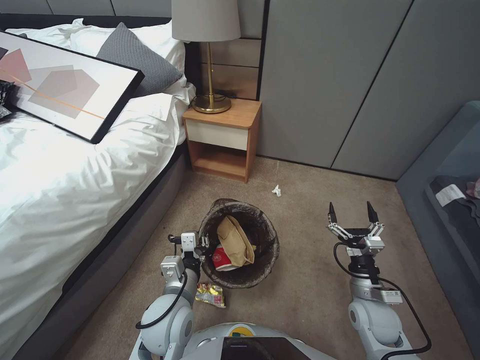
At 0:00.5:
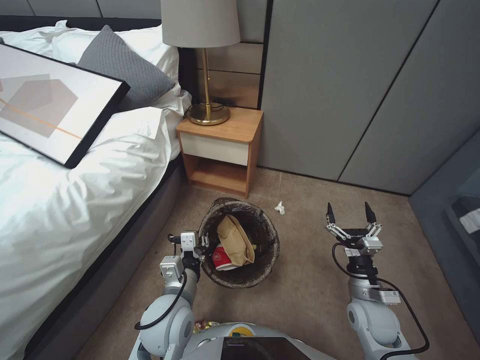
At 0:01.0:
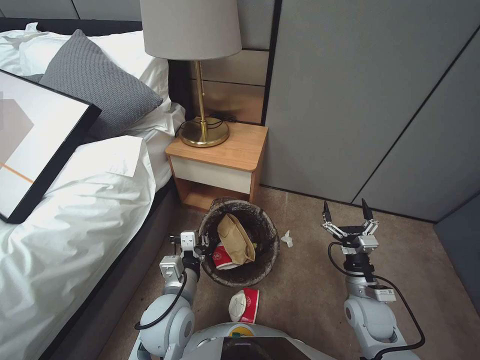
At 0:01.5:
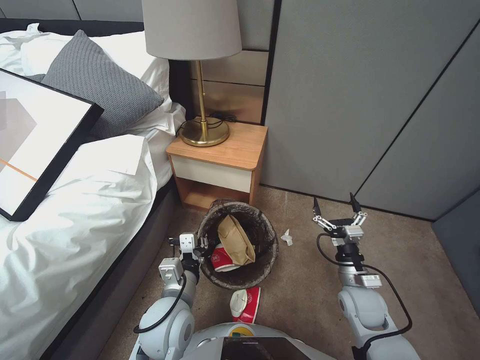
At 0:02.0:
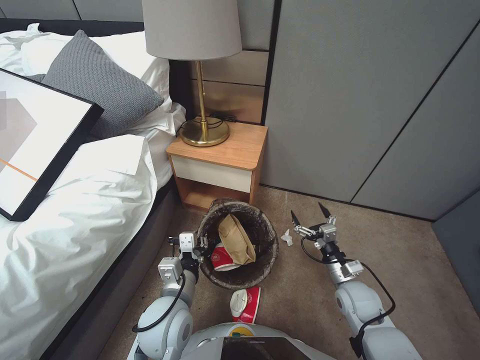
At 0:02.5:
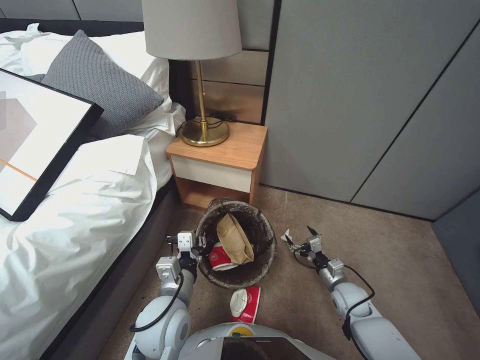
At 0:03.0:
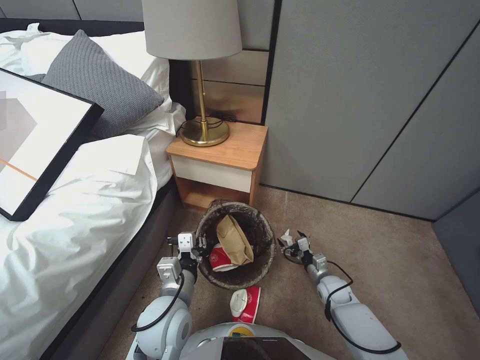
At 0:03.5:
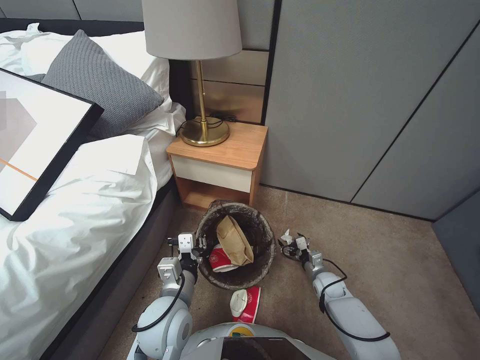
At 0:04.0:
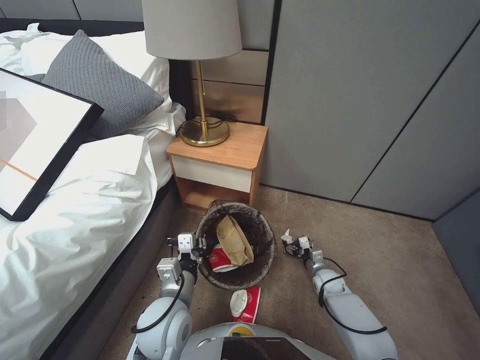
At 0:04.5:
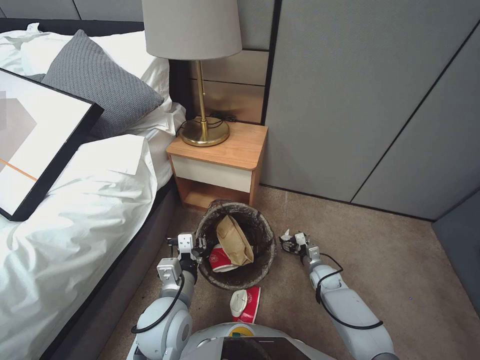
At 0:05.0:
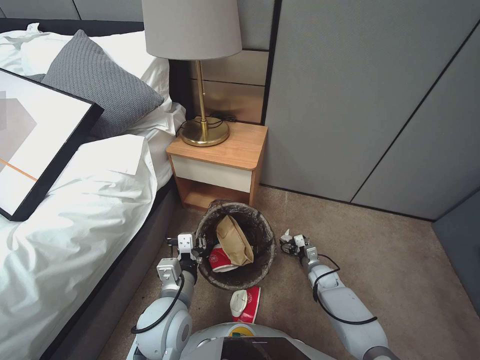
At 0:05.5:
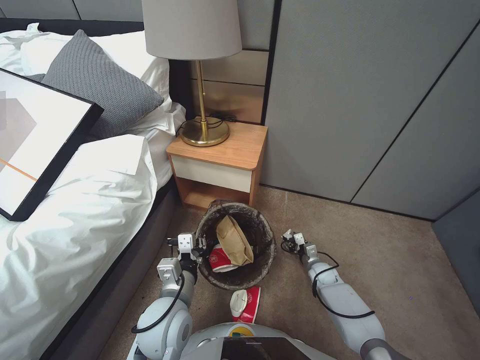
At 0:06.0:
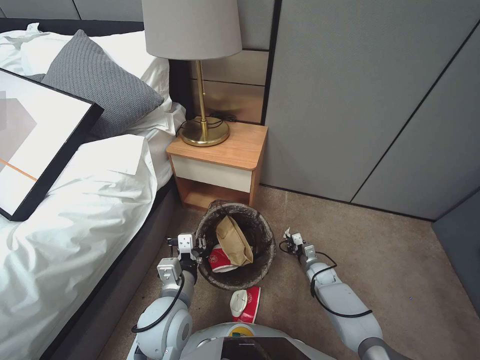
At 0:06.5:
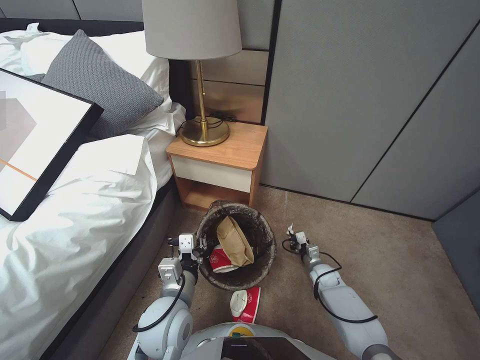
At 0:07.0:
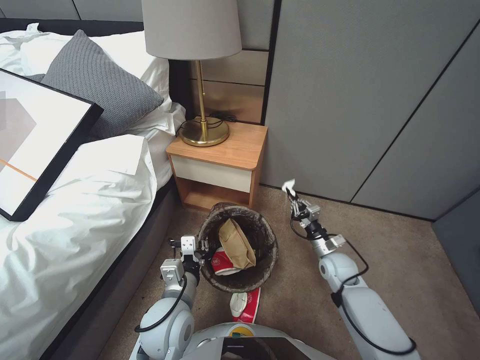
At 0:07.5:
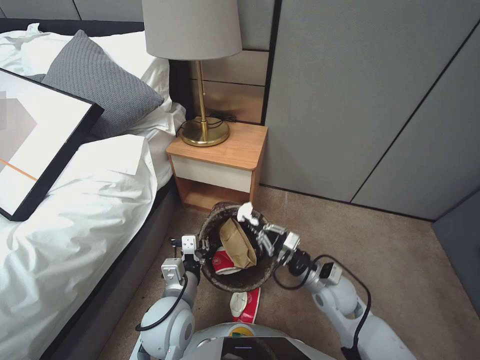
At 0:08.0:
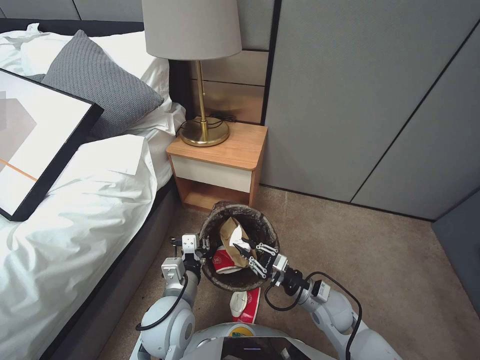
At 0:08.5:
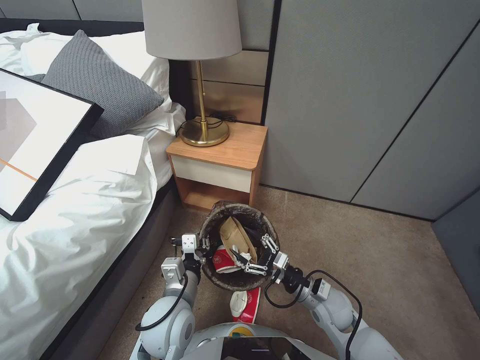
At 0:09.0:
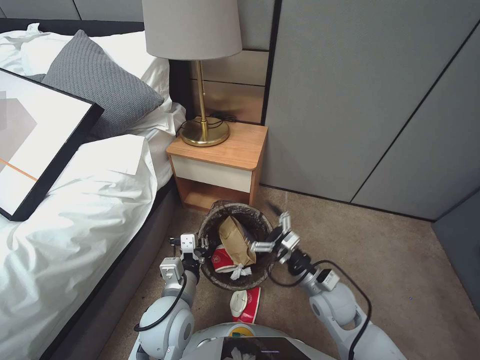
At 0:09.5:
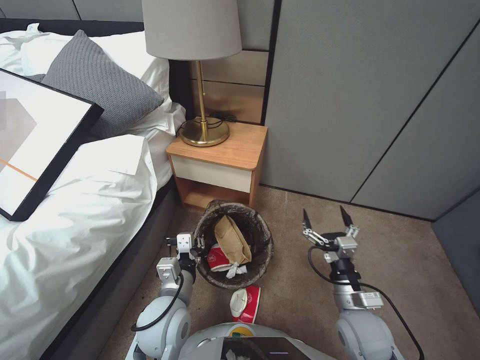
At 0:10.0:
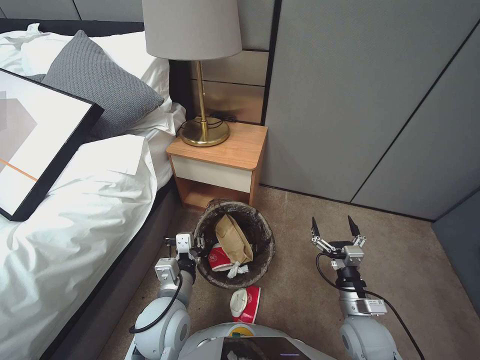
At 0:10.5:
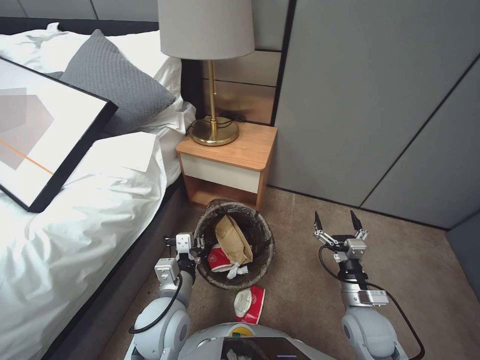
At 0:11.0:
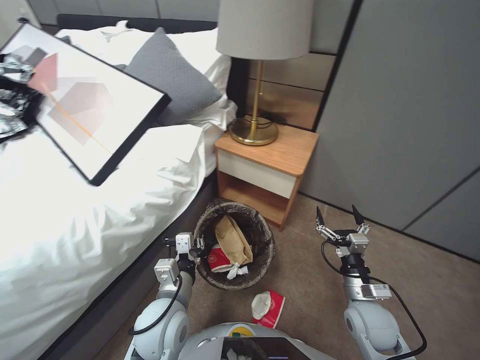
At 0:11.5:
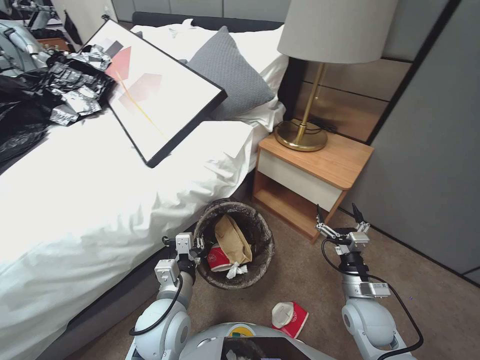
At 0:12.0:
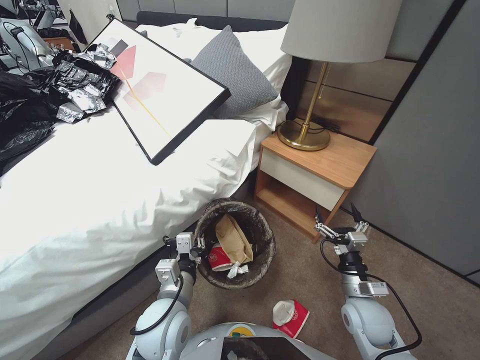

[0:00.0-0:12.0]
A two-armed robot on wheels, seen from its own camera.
Task of the whole recording: Pick up the trash bin, then pick up the garbage from the floor and place it into the trash bin.
0:02.0 to 0:04.0: The right gripper is displaced downward and forward by about 15 cm.
0:04.0 to 0:06.0: The right gripper closes.
0:06.0 to 0:08.0: The right gripper is displaced upward, backward and to the left by approximately 20 cm.
0:08.0 to 0:10.0: The right gripper is displaced backward by about 5 cm, and opens.

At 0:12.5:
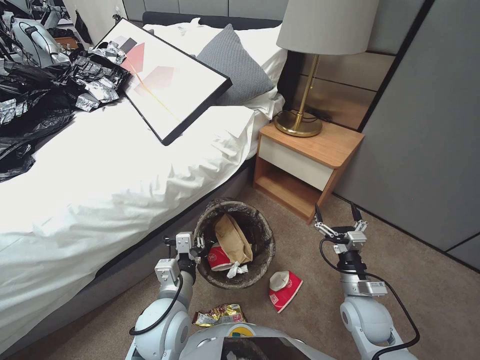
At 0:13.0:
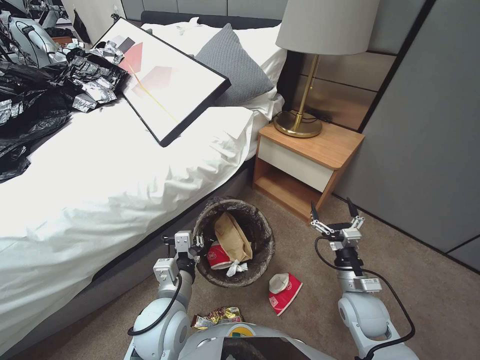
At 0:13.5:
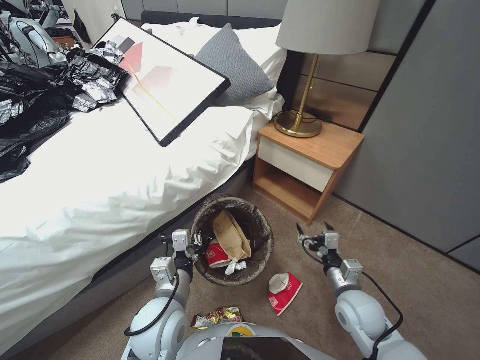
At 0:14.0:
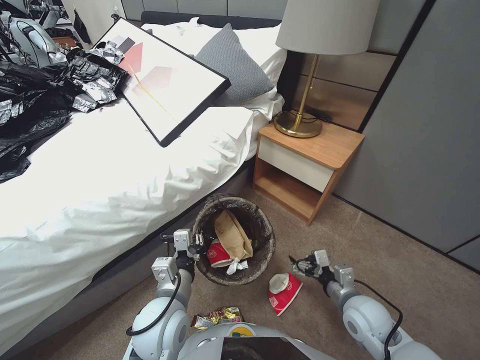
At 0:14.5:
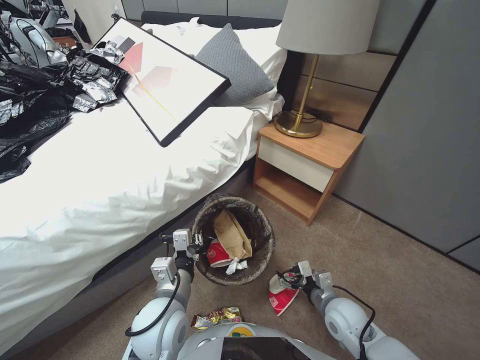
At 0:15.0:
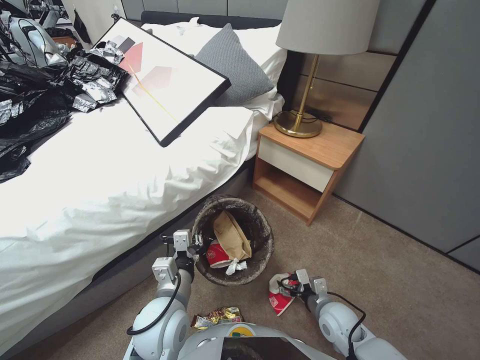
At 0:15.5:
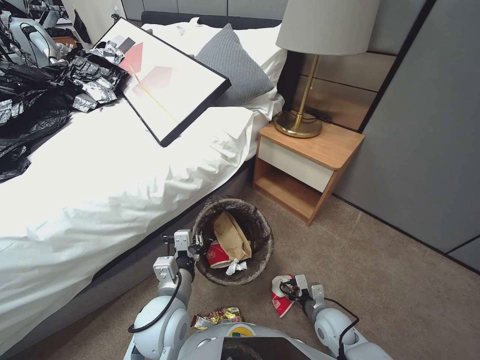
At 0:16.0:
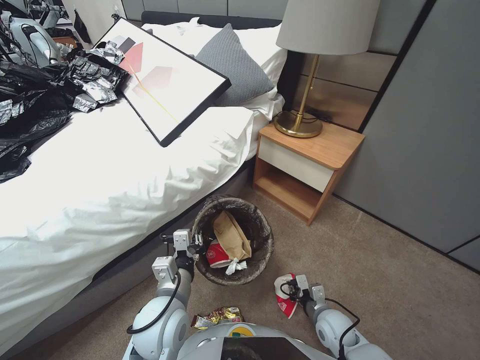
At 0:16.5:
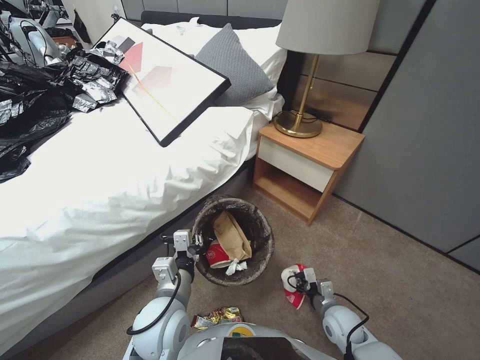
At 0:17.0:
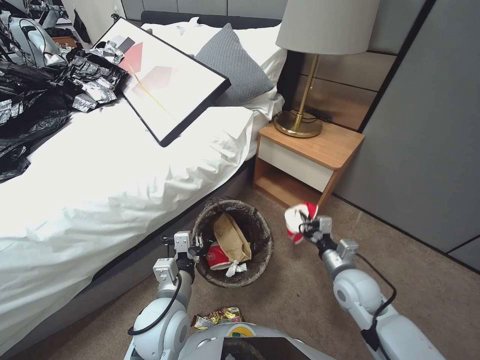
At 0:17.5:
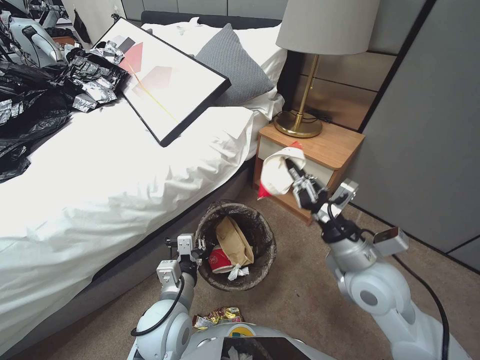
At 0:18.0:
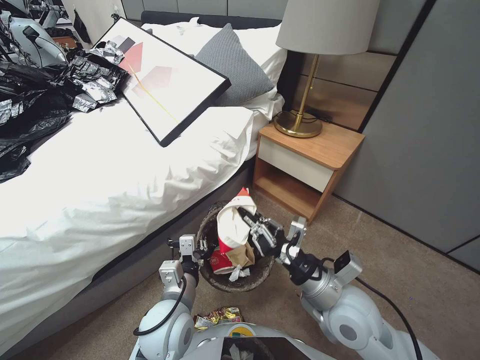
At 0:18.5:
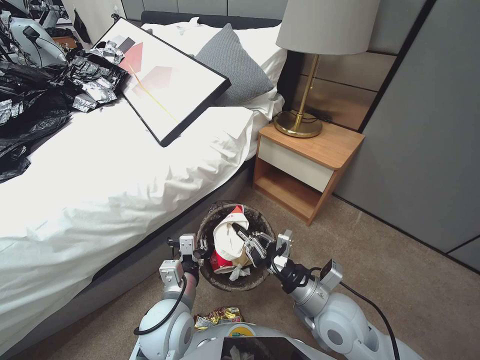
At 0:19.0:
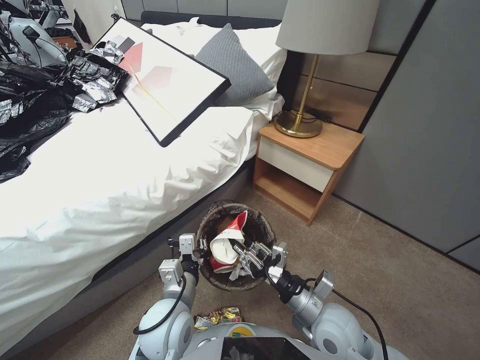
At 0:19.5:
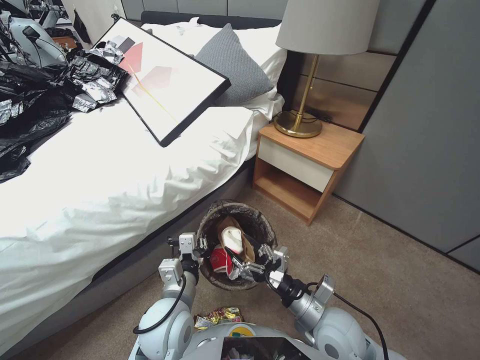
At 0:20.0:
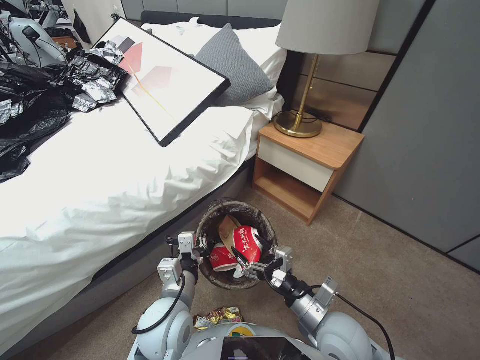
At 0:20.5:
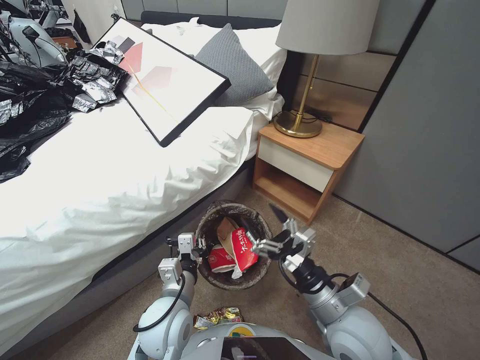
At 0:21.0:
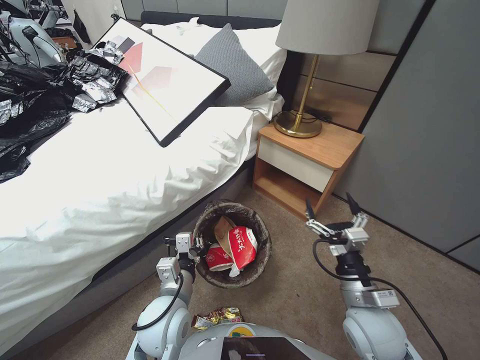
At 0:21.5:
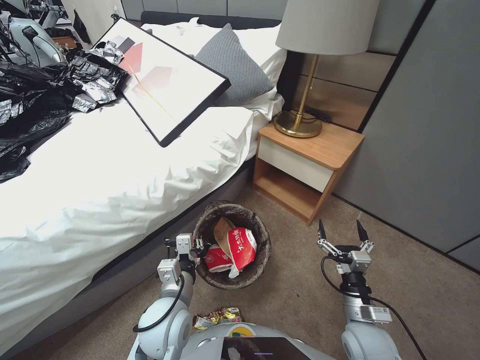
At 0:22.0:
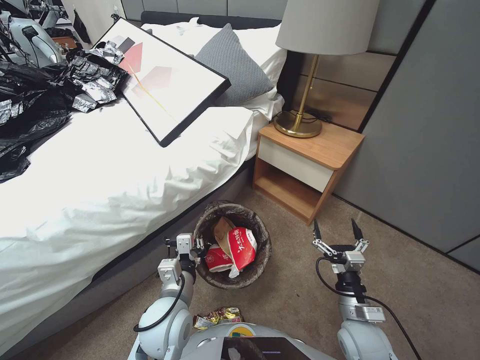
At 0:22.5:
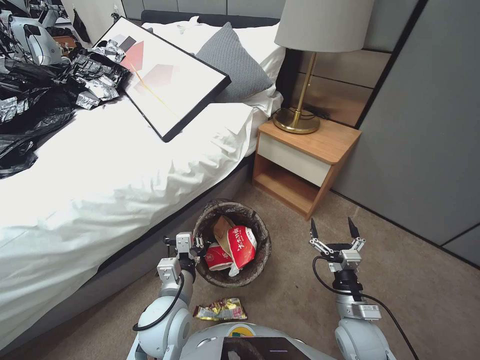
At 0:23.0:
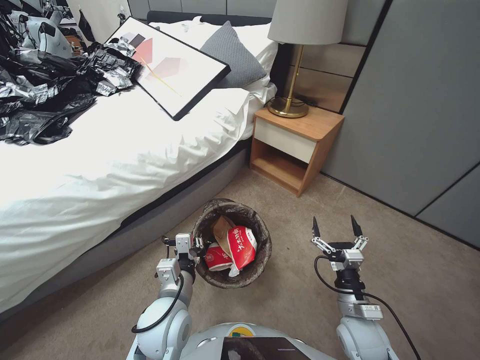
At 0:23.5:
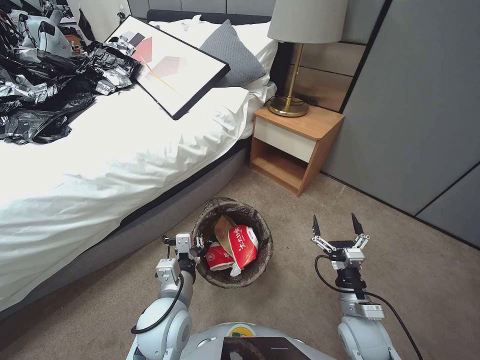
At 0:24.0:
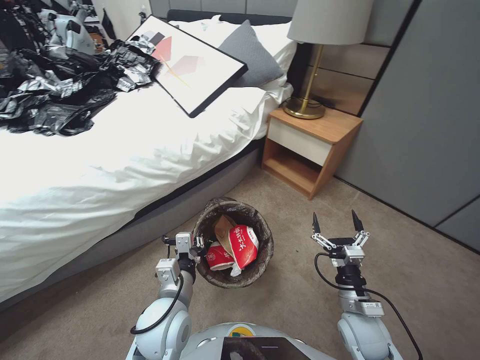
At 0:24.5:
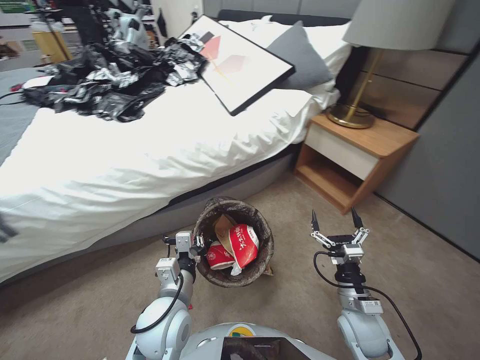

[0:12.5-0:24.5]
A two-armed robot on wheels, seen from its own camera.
Task of the whole recording: Pick up the trash bin, then pick up the garbage from the floor and place it into the trash bin.
0:14.5 to 0:16.5: The right gripper is displaced downward by some 10 cm, and closes up.
0:16.5 to 0:18.5: The right gripper is displaced upward and to the left by about 25 cm.
0:18.5 to 0:20.5: The right gripper opens.
0:20.5 to 0:22.5: The right gripper moves downward and to the right, about 15 cm.

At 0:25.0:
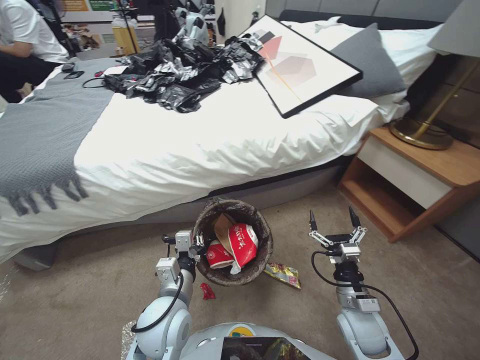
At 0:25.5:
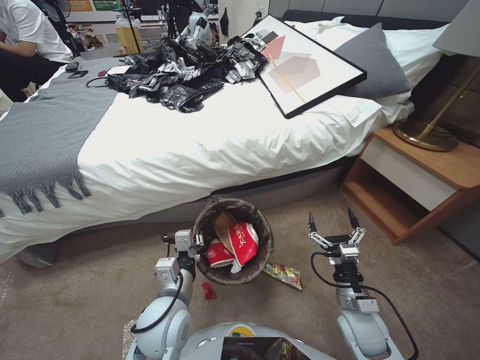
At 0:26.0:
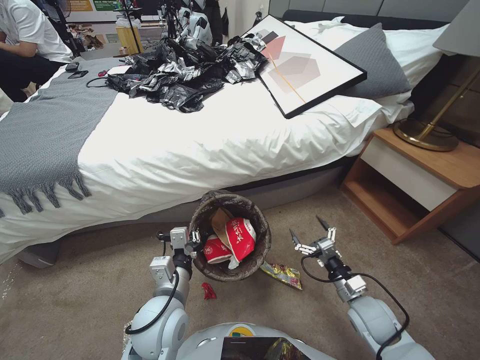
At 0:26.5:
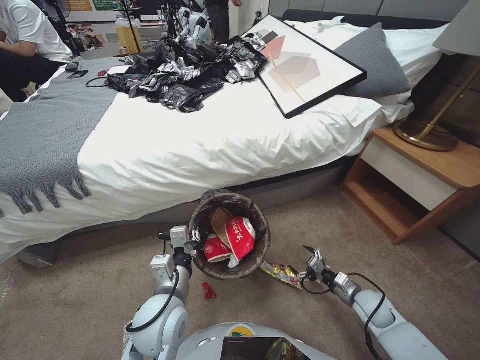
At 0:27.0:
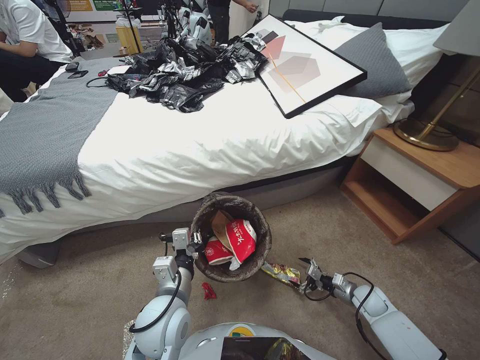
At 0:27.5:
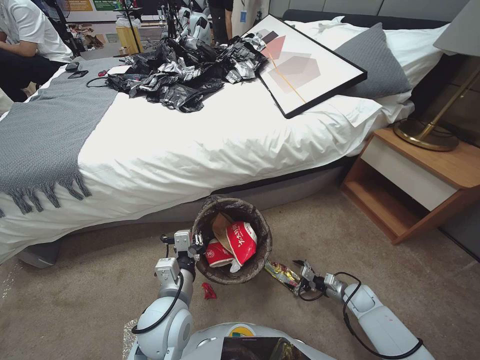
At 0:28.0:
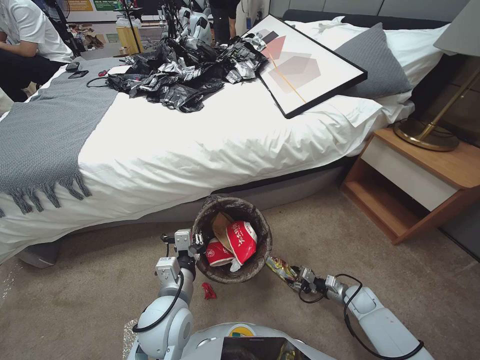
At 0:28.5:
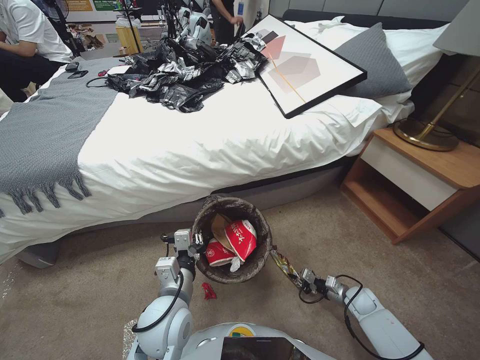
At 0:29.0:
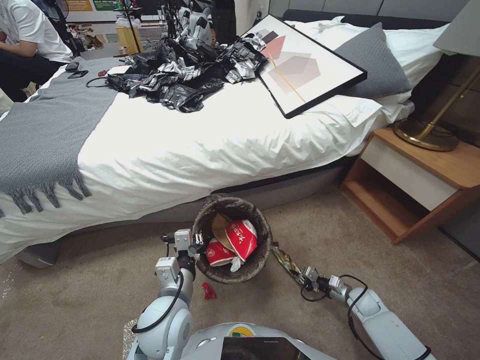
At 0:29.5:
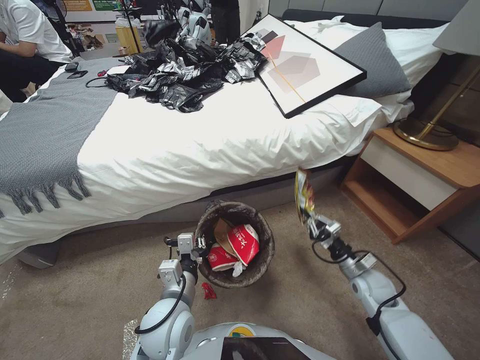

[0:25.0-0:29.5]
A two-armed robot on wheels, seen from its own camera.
Task of the whole recording: Pick up the trash bin, then pick up the garbage from the floor and place it into the trash bin.
0:25.0 to 0:27.0: The right gripper shifts about 20 cm to the right, downward and forward.
0:27.0 to 0:29.5: The right gripper closes up.
